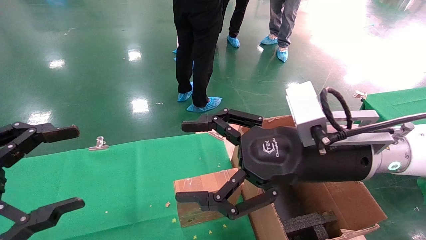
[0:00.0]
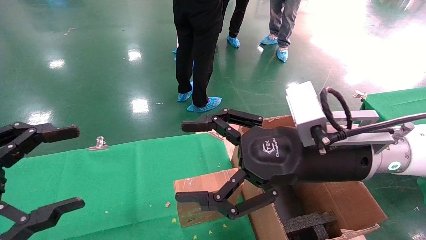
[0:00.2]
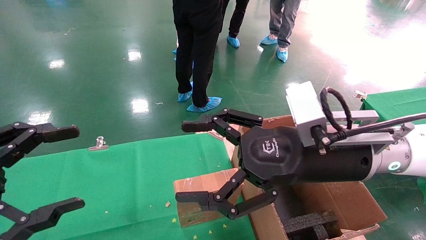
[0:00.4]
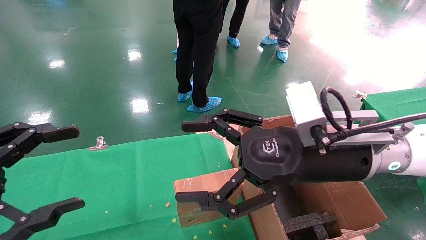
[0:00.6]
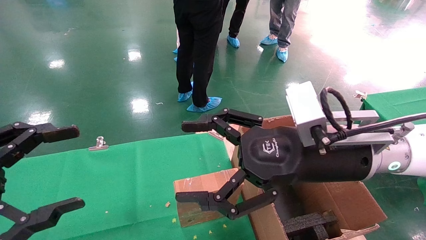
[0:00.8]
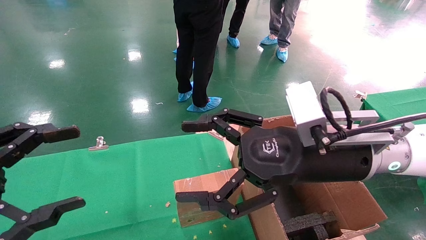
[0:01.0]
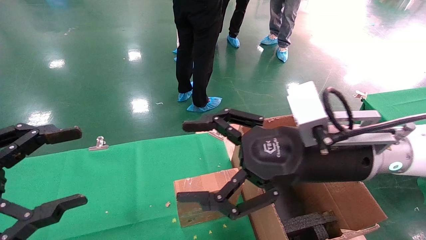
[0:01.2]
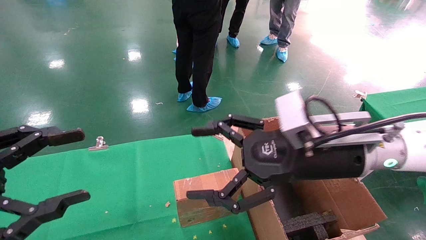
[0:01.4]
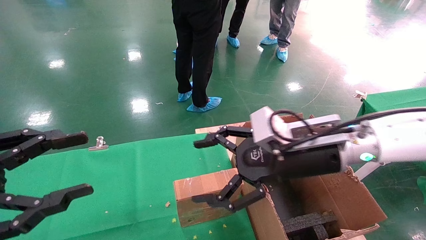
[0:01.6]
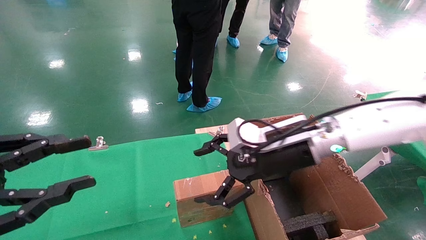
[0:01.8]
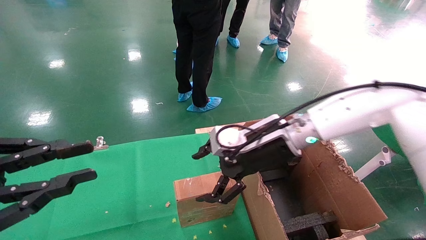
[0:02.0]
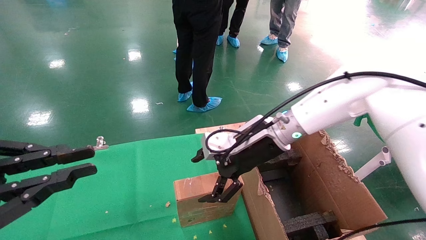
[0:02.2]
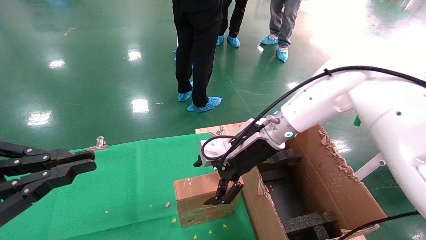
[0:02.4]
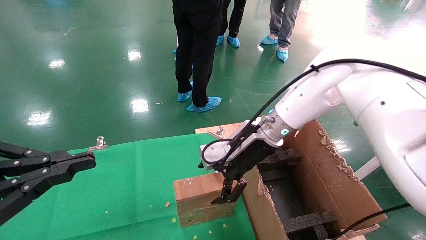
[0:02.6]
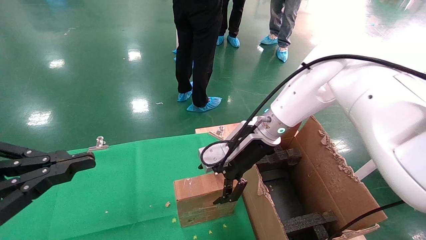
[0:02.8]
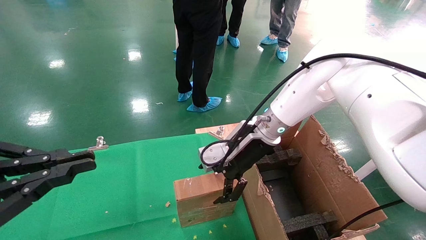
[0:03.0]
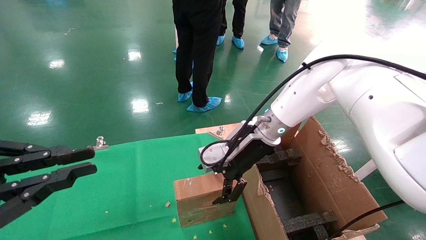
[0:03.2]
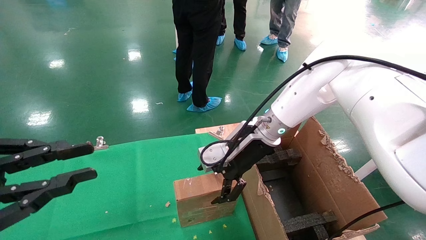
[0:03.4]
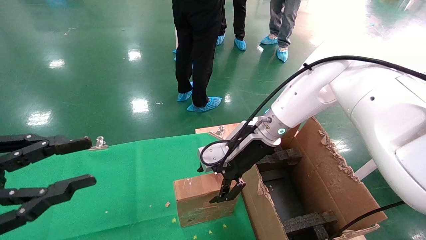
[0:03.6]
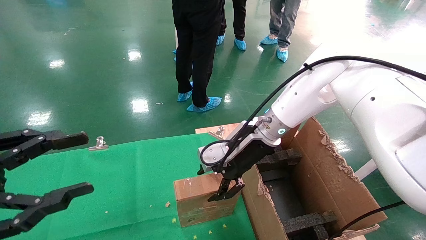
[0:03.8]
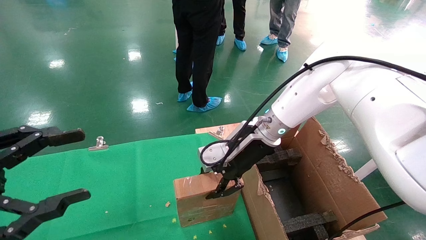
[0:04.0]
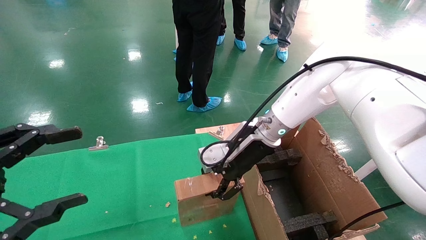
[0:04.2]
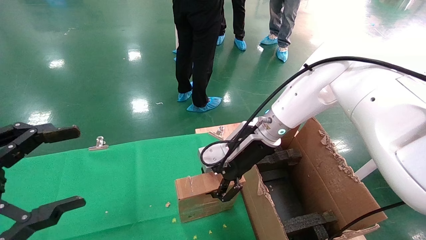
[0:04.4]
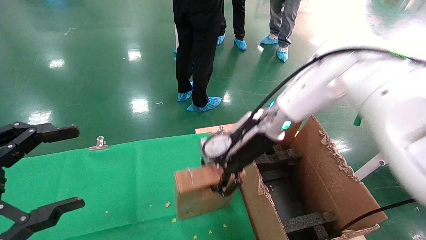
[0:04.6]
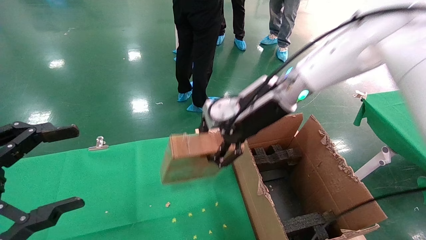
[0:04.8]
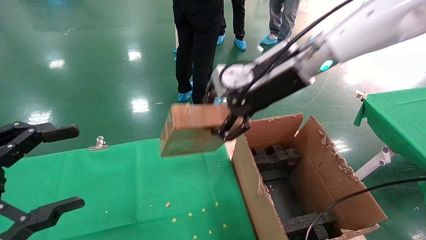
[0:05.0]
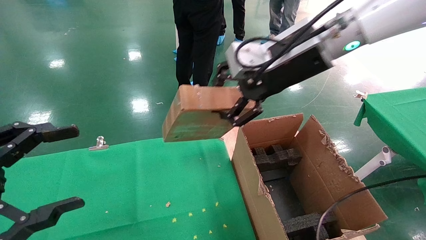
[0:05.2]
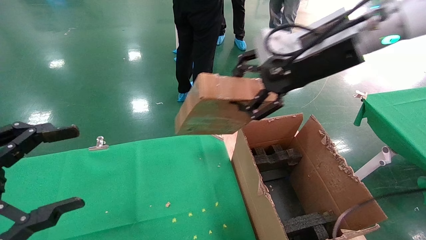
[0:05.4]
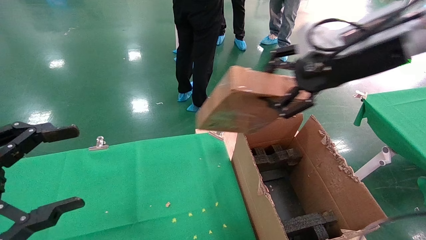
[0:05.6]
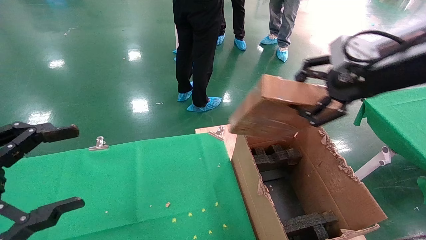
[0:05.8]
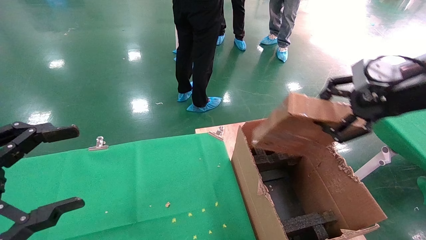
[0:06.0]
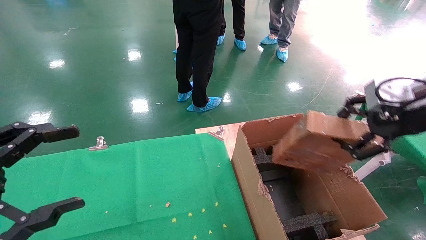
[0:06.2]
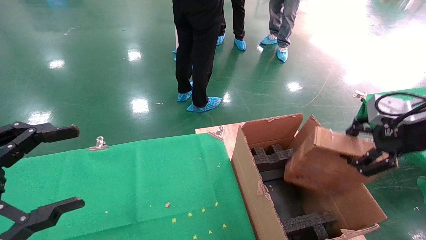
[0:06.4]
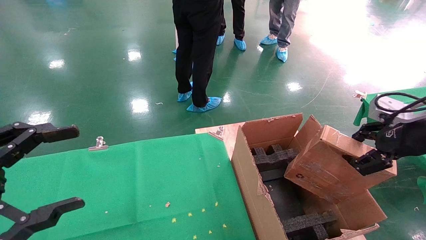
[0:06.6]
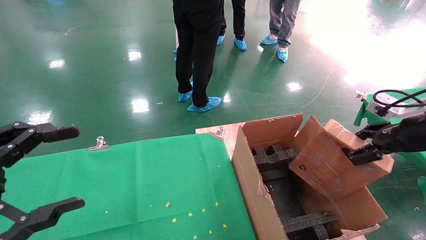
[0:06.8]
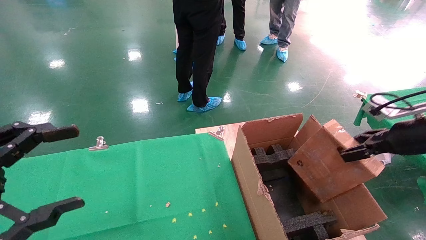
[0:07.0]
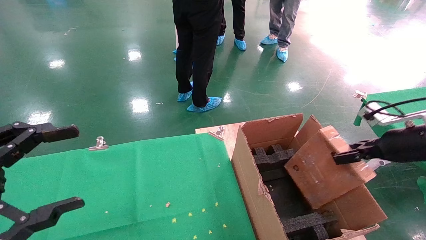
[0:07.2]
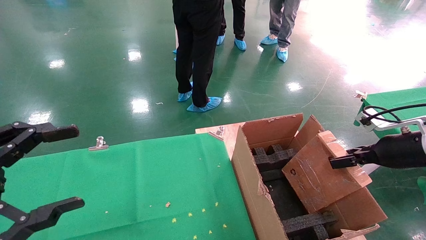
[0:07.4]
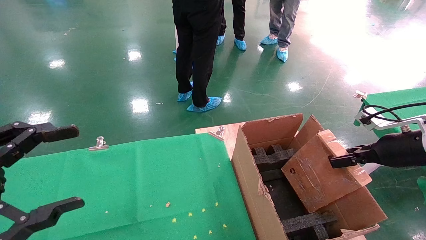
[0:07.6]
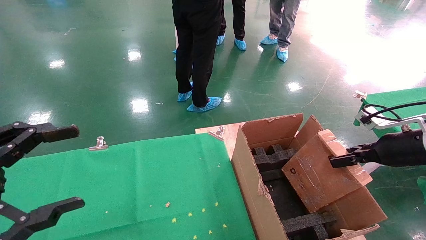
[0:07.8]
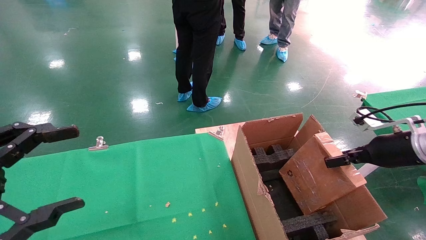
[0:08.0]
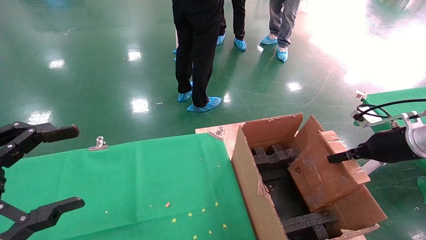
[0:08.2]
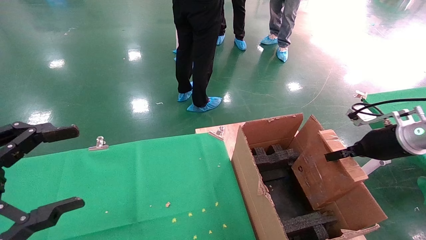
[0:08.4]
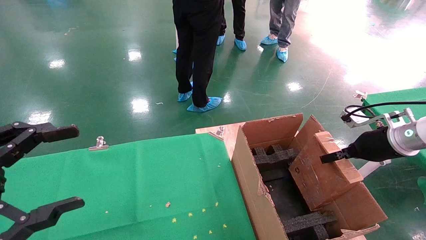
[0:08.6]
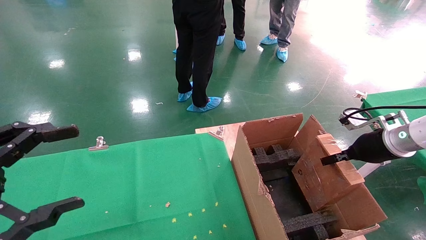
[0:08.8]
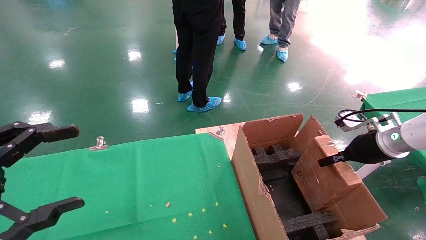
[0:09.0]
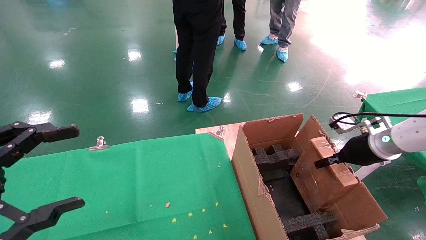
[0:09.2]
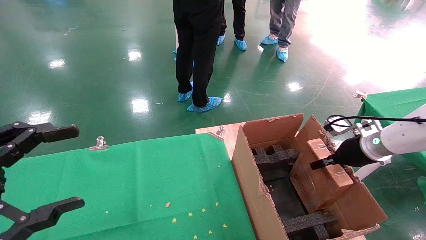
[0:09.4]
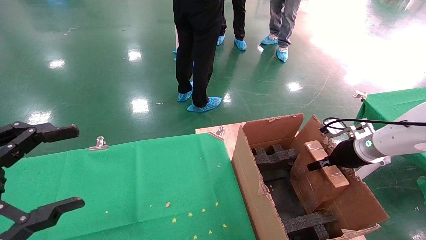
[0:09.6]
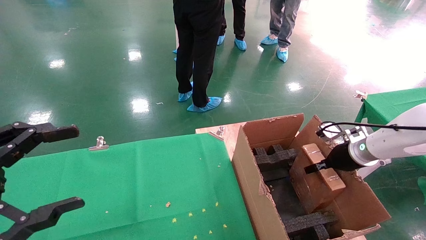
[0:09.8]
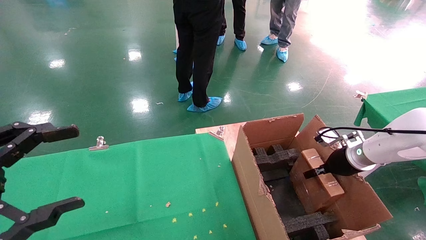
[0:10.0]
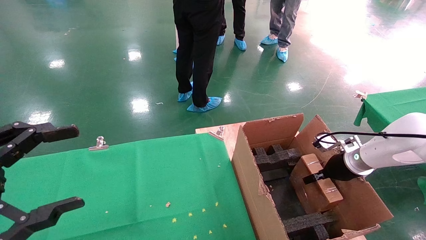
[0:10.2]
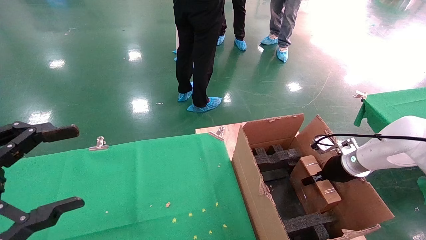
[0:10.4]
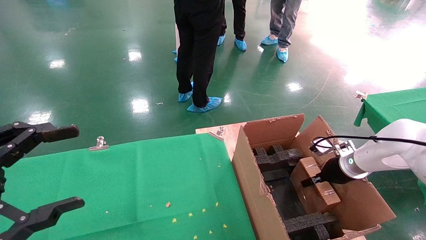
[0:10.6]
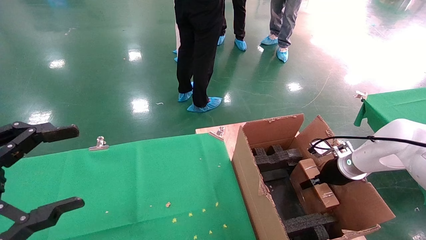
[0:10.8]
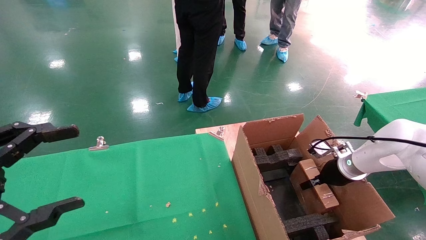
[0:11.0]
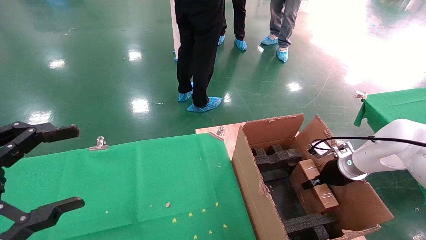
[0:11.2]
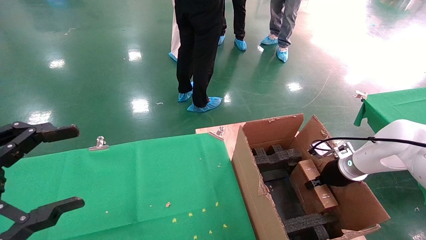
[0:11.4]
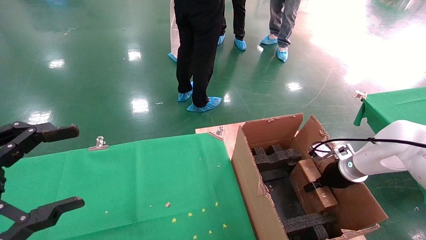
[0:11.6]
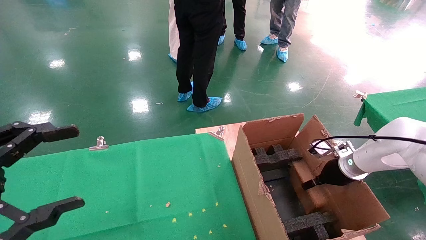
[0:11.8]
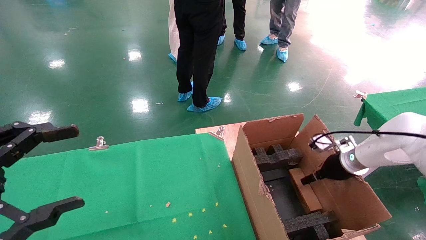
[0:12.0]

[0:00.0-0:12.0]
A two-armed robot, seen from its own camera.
Task of the whole recording: using a robotic arm to pick up a cardboard box and palace it the carton.
Step, 0:01.0 to 0:04.0: Pick up the mouse and the power cord paper box.
0:00.0 to 0:01.6: The right gripper travels forward by roughly 5 cm.
0:01.6 to 0:03.0: The left gripper closes; the right gripper goes some 10 cm forward.
0:03.0 to 0:04.4: The right gripper closes up, while the left gripper opens its fingers.
0:04.4 to 0:06.0: The right gripper is displaced to the right, backward and upward by roughly 30 cm.
0:06.0 to 0:07.6: The right gripper goes about 20 cm downward and to the right.
0:07.6 to 0:09.0: The right gripper is displaced forward by some 5 cm.
0:09.0 to 0:10.4: The right gripper heads downward and forward, covering roughly 10 cm.
0:10.4 to 0:12.0: The right gripper opens its fingers.

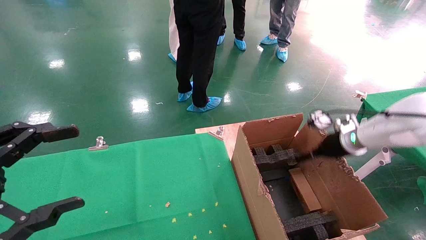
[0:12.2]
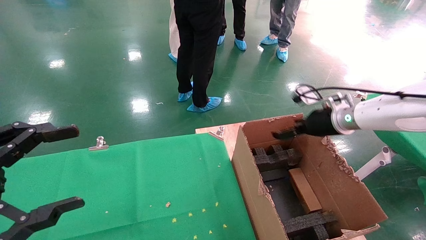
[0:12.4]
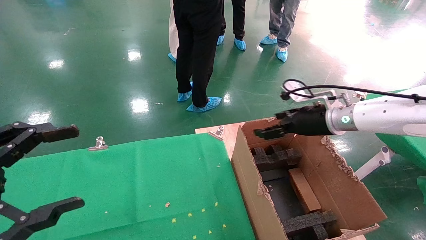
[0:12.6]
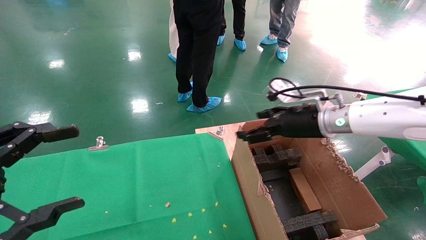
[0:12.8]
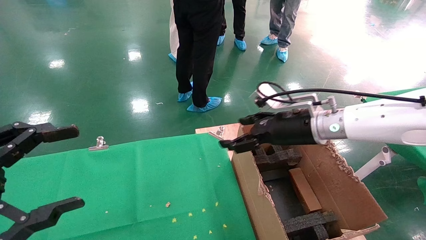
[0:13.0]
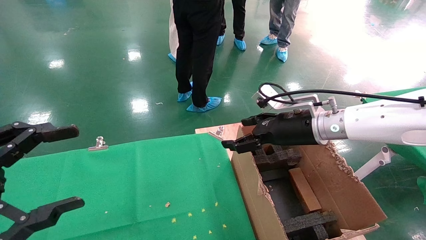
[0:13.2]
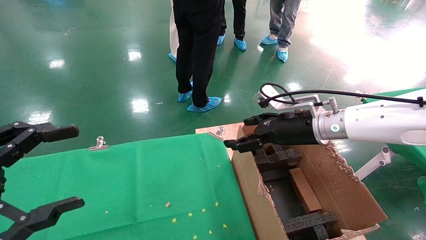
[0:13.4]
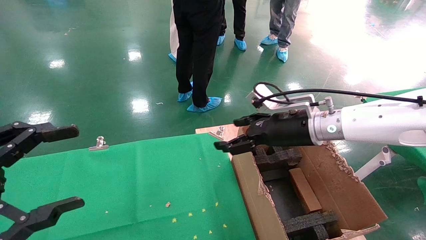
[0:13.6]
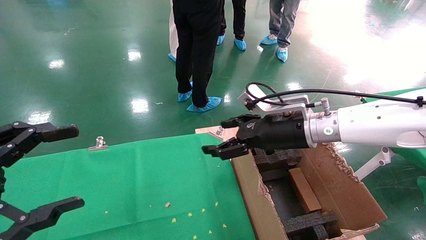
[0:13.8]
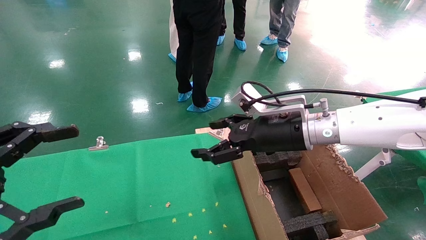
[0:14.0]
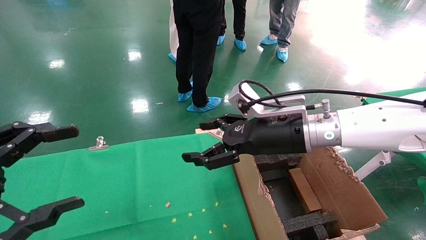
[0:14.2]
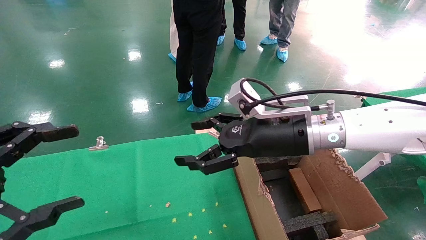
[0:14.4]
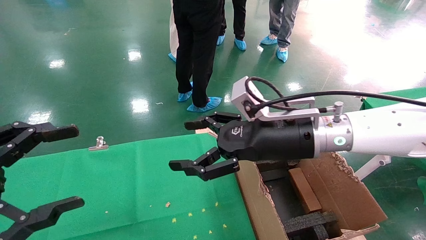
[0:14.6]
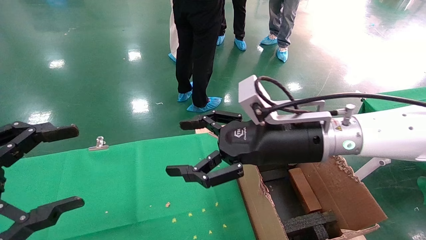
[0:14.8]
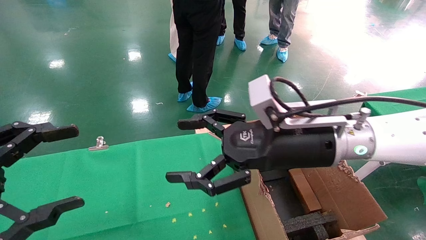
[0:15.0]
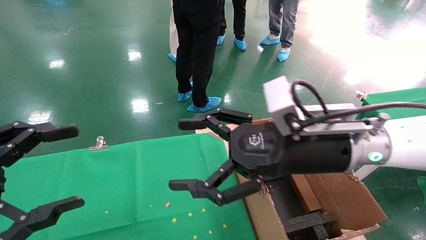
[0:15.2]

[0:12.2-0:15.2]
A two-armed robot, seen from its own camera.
Task of the whole recording: using a robotic arm to pick up a cardboard box and palace it the carton.
0:12.2 to 0:13.8: The right gripper travels to the left and upward by some 20 cm.
0:13.8 to 0:15.2: The right gripper goes roughly 10 cm backward.

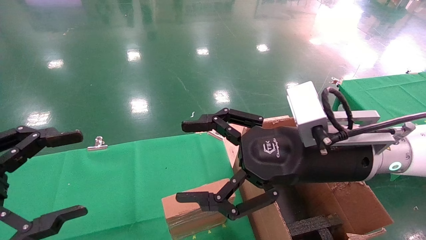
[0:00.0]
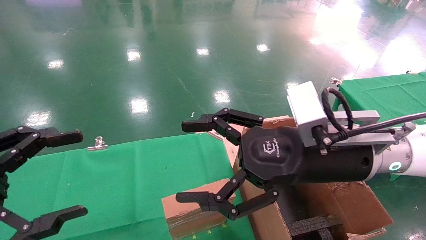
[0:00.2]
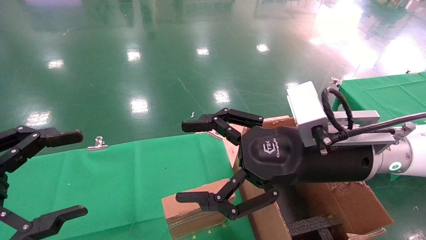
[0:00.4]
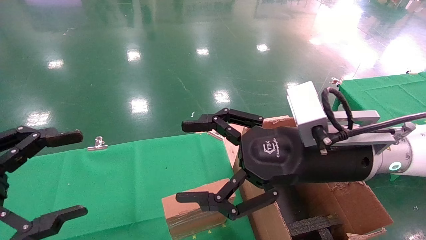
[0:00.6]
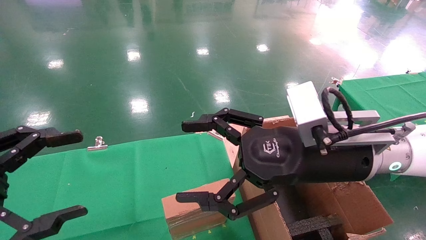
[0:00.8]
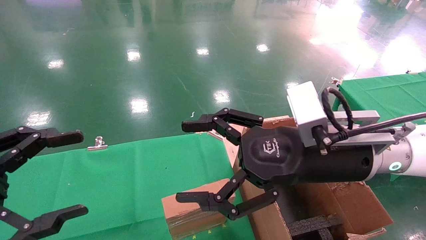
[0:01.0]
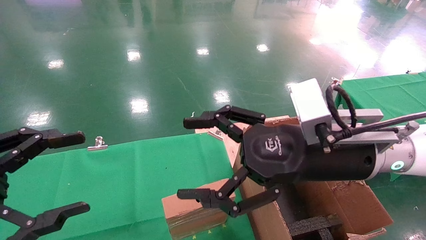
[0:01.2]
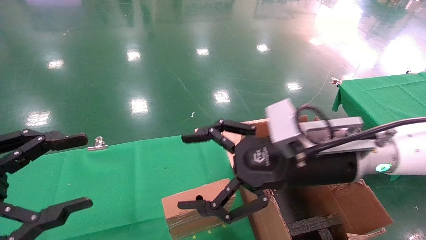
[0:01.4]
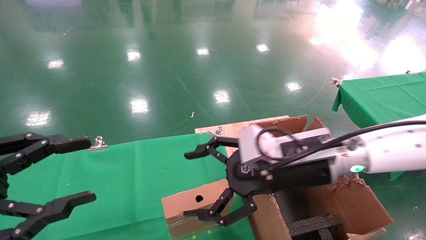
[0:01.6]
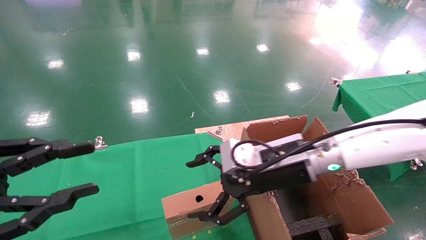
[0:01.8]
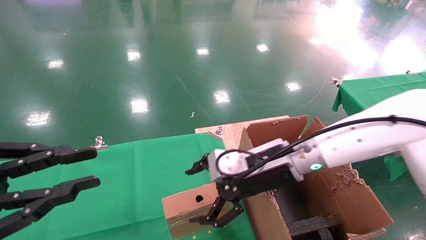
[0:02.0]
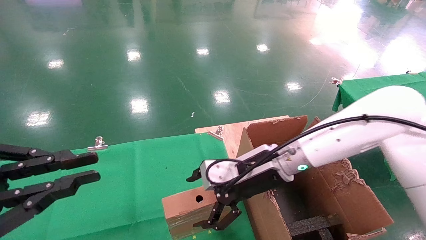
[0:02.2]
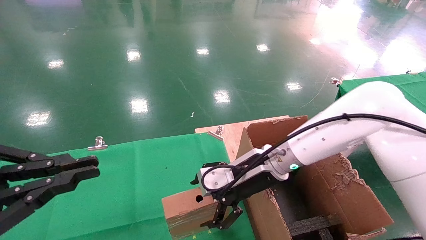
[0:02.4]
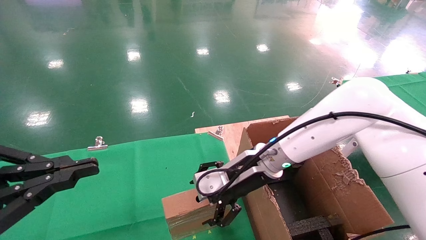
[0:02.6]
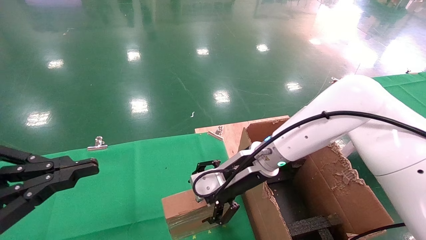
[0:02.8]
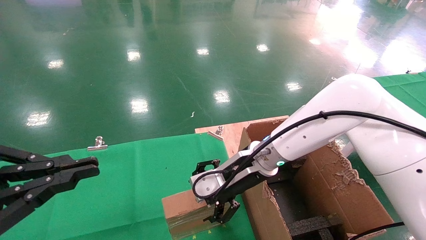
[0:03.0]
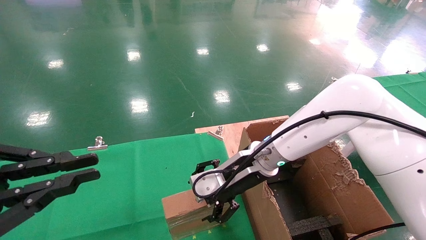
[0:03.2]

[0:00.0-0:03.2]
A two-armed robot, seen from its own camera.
Task of the whole recording: using a robotic arm to pick up a cardboard box and palace it the carton.
0:00.0 to 0:01.6: The right gripper moves approximately 5 cm.
0:01.6 to 0:03.2: The right gripper heads forward and to the left, covering some 10 cm, while the left gripper closes.
